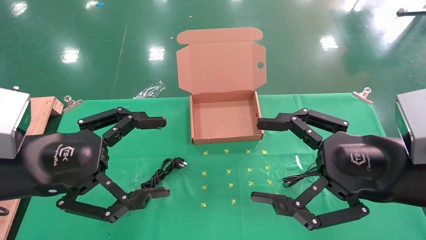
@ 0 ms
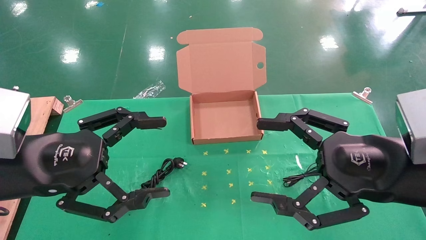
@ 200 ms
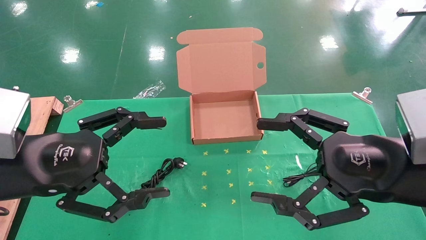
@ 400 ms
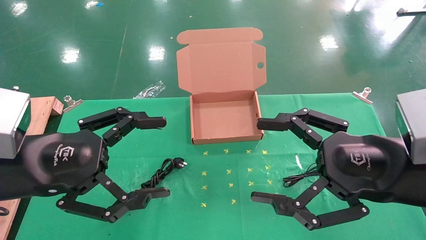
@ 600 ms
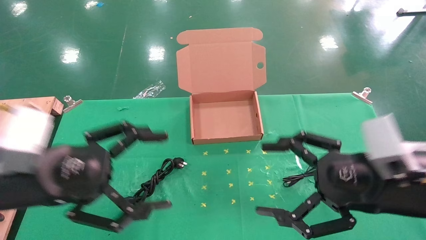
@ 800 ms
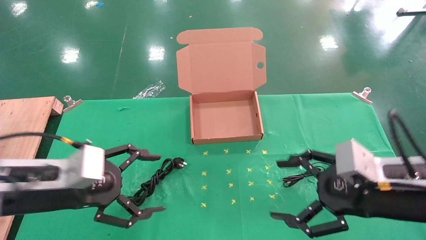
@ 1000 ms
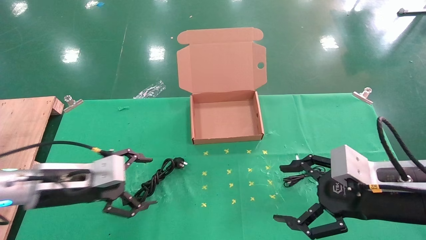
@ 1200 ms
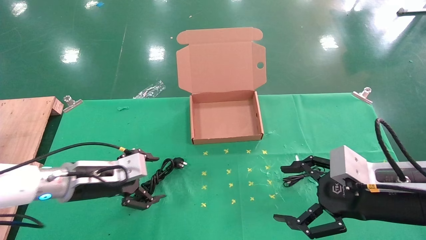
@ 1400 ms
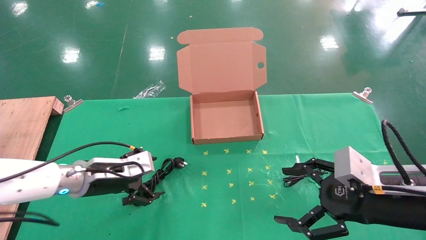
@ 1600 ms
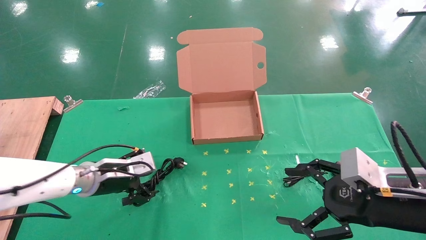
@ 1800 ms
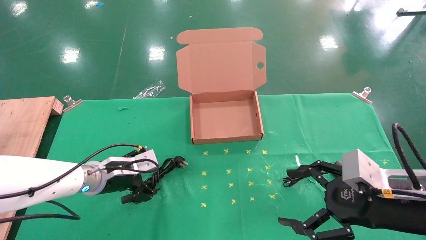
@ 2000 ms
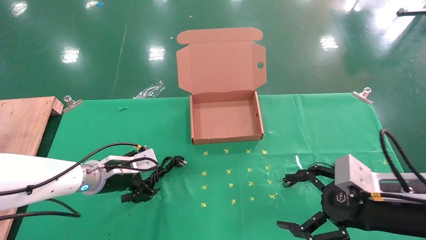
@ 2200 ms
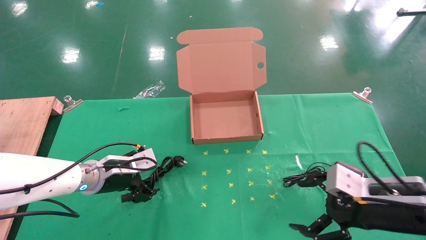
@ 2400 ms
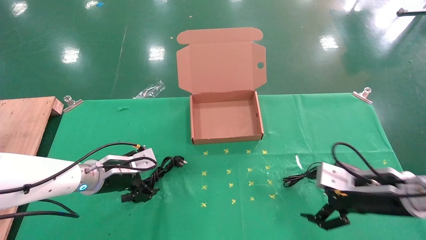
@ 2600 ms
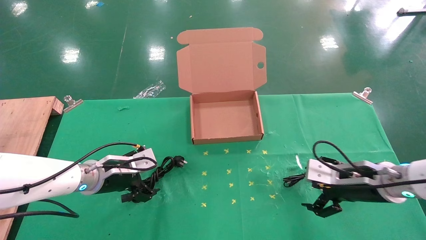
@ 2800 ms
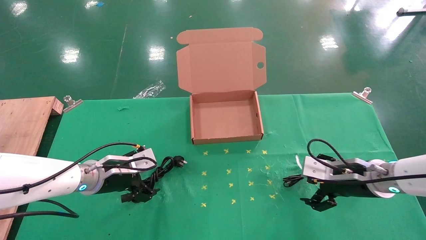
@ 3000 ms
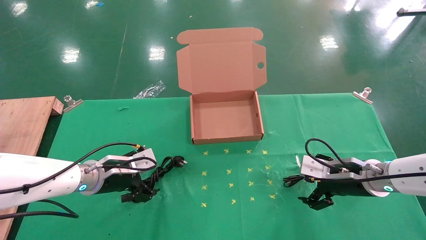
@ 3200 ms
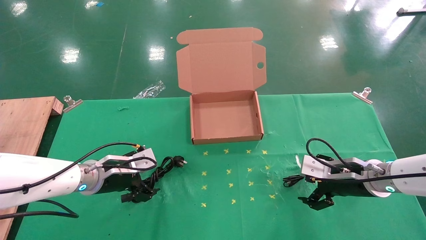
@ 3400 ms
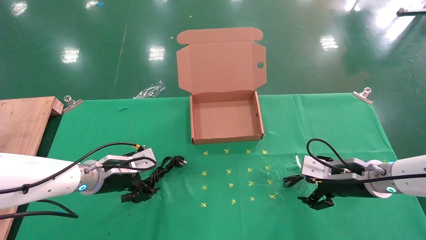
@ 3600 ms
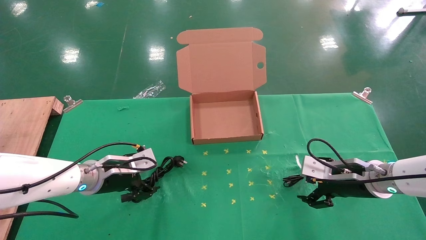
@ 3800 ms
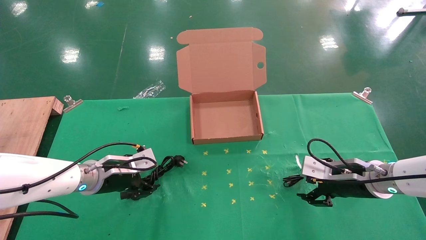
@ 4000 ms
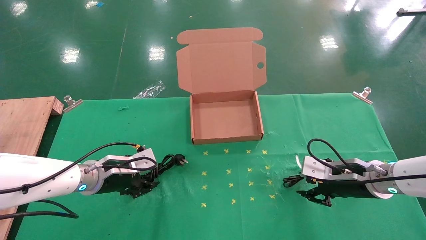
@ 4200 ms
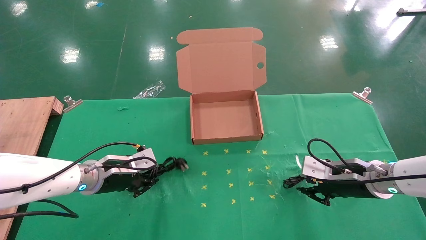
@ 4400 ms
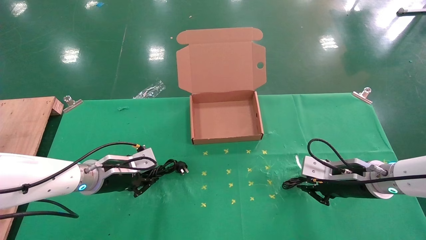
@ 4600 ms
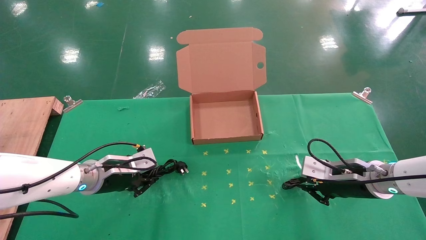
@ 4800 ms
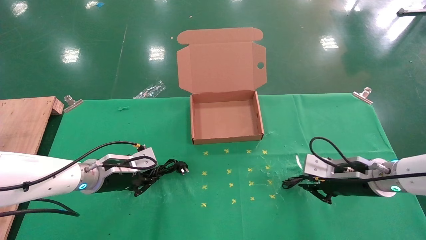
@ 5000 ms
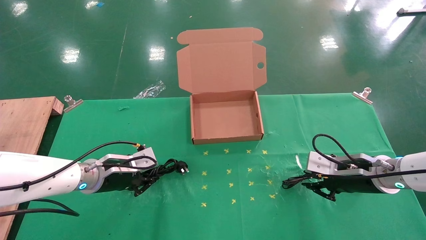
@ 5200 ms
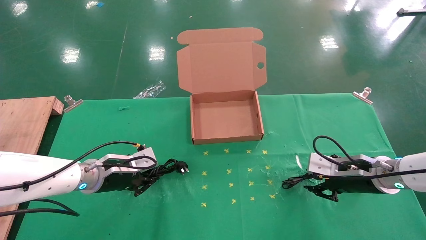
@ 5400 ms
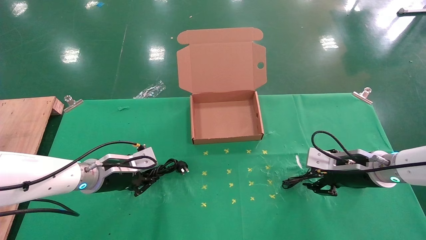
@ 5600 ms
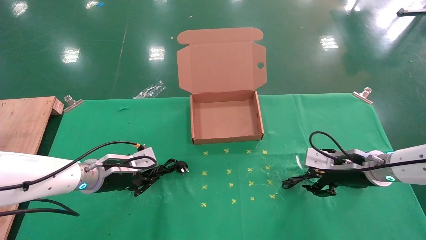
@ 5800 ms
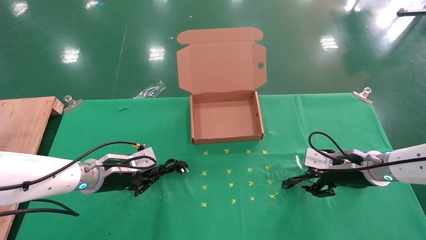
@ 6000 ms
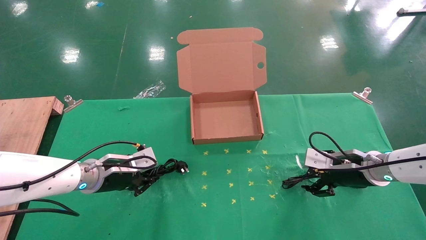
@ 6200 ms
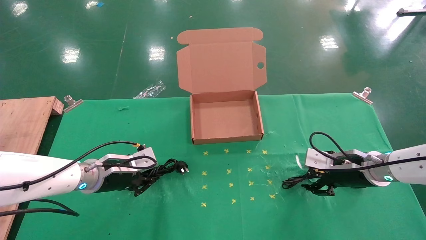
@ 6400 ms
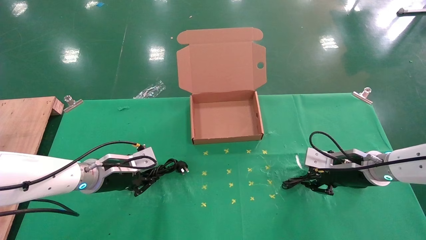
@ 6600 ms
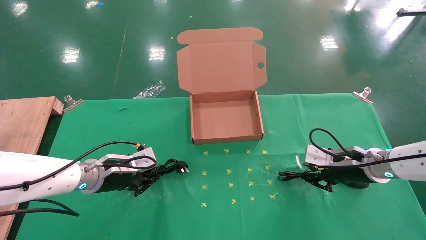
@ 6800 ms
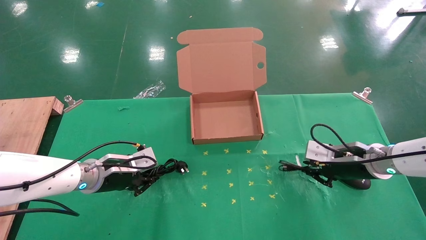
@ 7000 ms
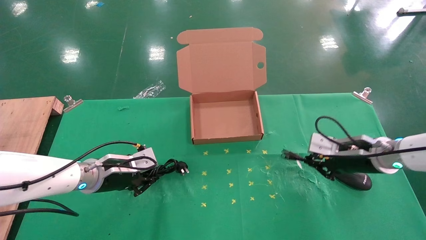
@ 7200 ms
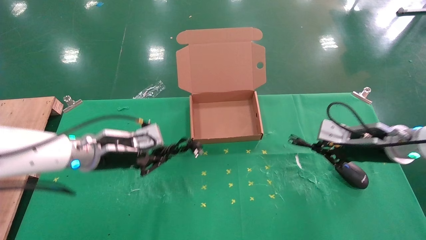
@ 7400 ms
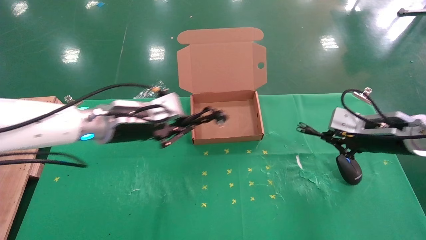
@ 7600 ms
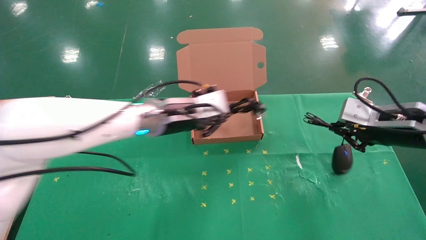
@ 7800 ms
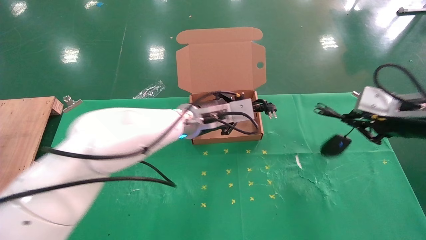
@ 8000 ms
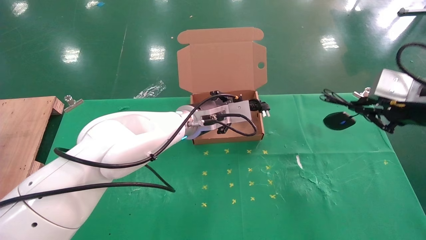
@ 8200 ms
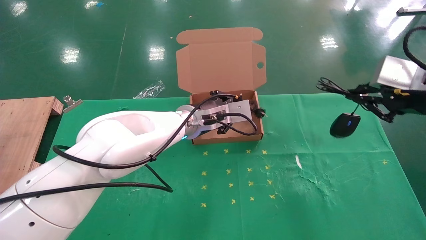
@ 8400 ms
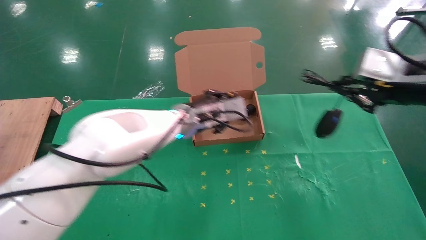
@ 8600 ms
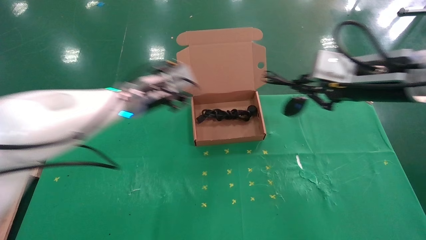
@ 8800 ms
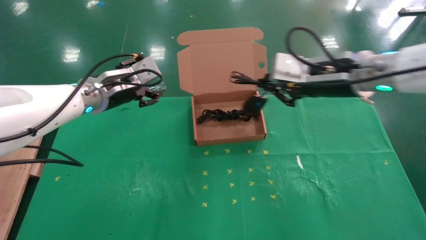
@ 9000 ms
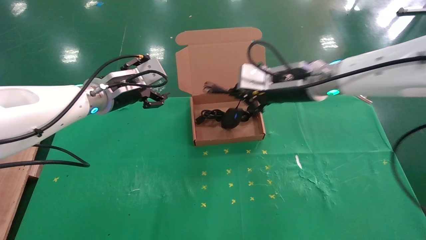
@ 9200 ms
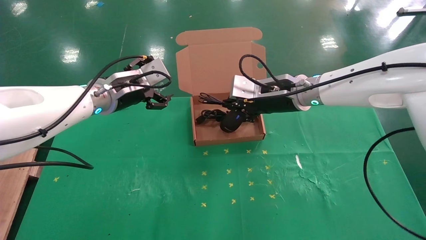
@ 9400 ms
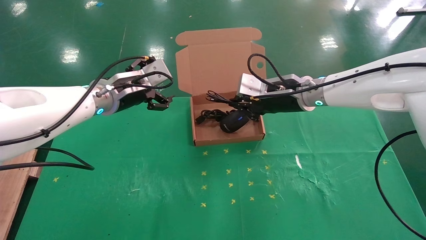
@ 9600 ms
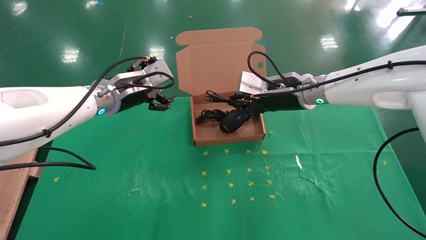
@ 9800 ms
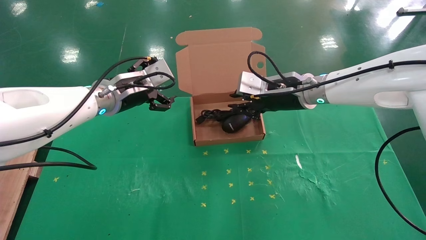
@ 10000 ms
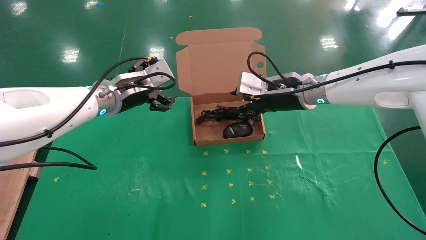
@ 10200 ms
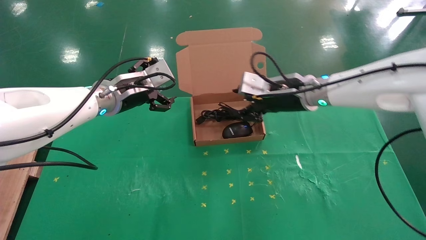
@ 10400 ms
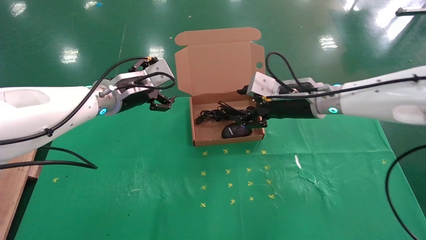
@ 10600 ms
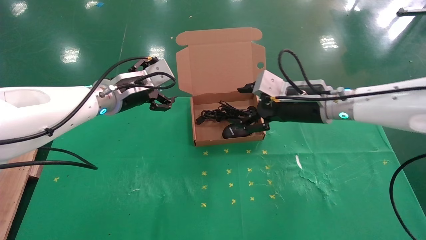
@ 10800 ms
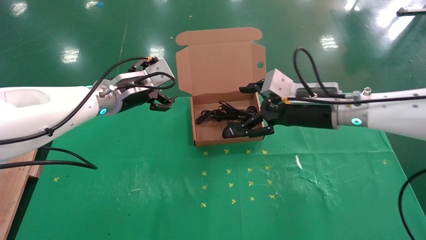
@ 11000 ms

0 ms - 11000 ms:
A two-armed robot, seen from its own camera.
Task of the whole recording: grasp data cable left put into box grasp mouse right put into box.
Step, 1000 ms - 7000 ms: Simultaneously pick up the mouse and power cord from the accessory packaging area.
Step, 7200 ms - 10000 ms: Place the mouse and power cord into the box.
0 ms - 1600 ms: The left gripper is displaced forward and downward by about 20 cm; the right gripper moves downward, about 5 cm.
1600 ms - 3200 ms: The right gripper is displaced forward and downward by about 15 cm.
3200 ms - 4800 ms: The left gripper closes; the right gripper closes.
4800 ms - 6200 ms: The right gripper opens up.
6200 ms - 7800 ms: The right gripper is displaced upward and backward by roughly 15 cm, and closes its fingers; the left gripper goes about 20 cm to the right and upward.
7800 ms - 9400 ms: The left gripper shifts roughly 10 cm to the left, and opens. The right gripper is displaced to the left and forward by some 20 cm.
9400 ms - 11000 ms: The right gripper heads backward, covering some 5 cm, and opens its fingers.

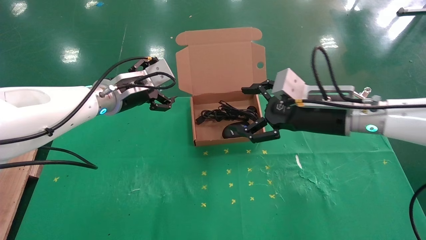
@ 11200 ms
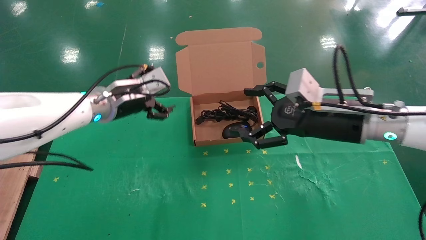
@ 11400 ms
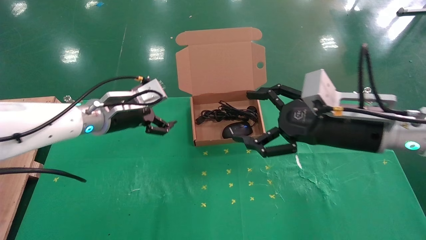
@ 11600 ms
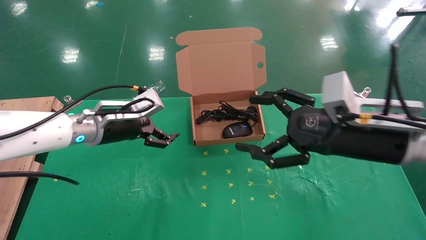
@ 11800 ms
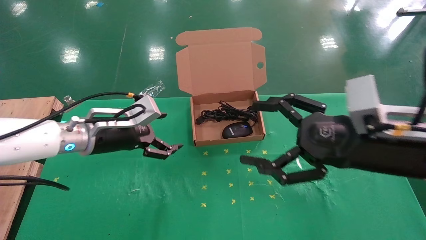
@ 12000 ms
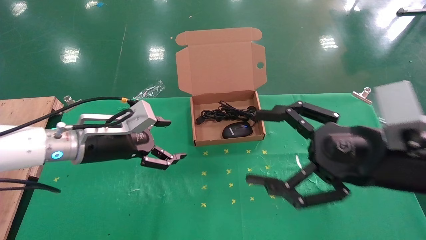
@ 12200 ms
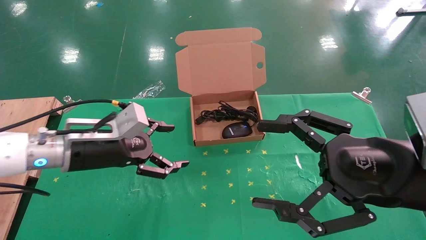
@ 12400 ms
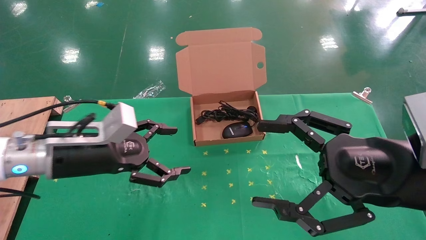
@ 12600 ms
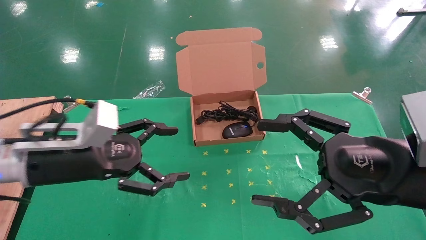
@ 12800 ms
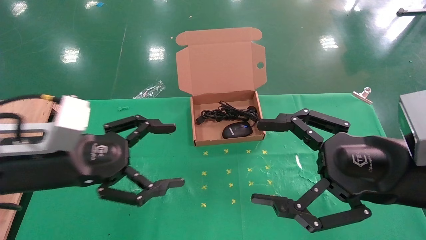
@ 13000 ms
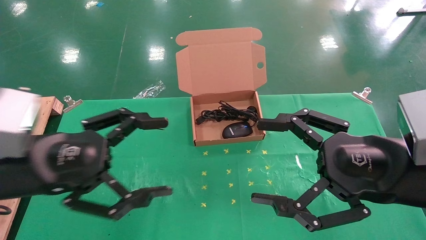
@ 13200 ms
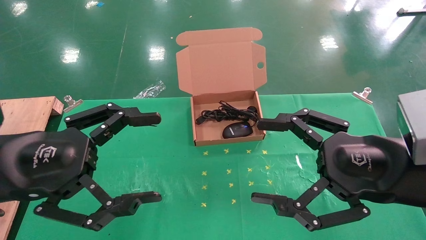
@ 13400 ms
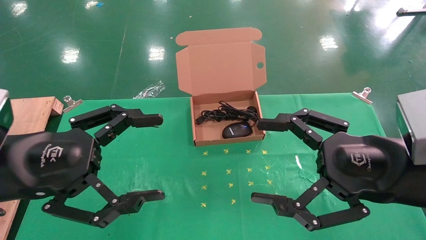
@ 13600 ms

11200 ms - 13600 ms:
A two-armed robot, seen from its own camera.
Task of the whole recording: grasp data cable left put into box grasp mouse right put into box.
11200 ms - 12400 ms: The left gripper is displaced backward and downward by about 10 cm. Meanwhile the right gripper goes roughly 15 cm backward.
12400 ms - 13600 ms: The left gripper shifts approximately 15 cm backward and upward.
